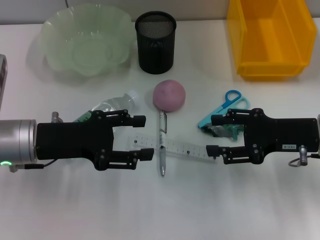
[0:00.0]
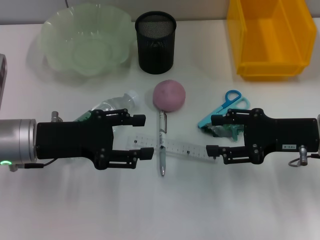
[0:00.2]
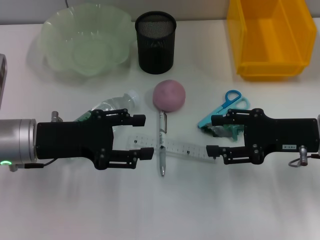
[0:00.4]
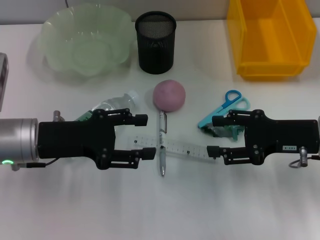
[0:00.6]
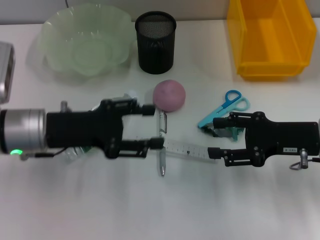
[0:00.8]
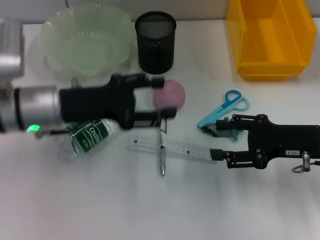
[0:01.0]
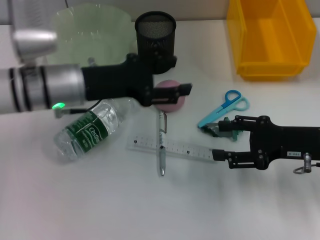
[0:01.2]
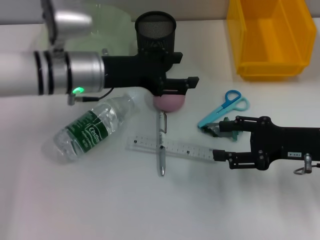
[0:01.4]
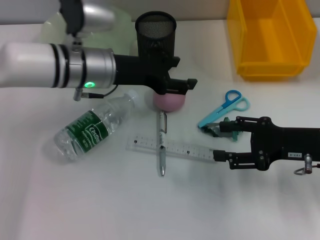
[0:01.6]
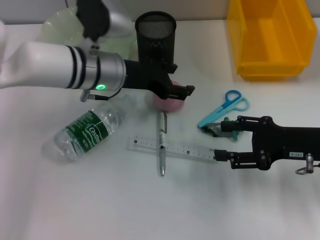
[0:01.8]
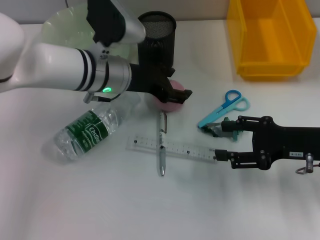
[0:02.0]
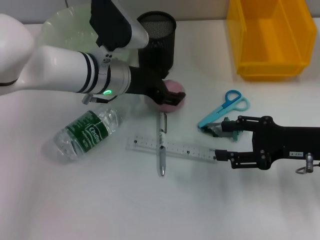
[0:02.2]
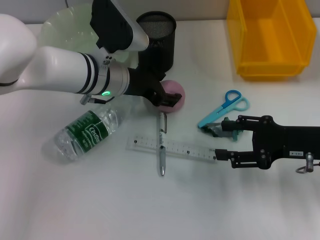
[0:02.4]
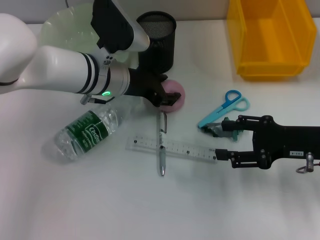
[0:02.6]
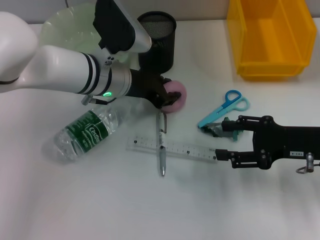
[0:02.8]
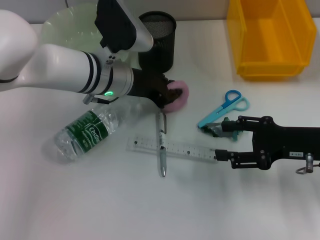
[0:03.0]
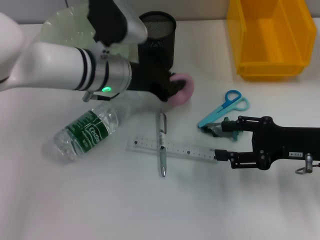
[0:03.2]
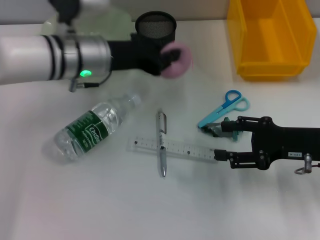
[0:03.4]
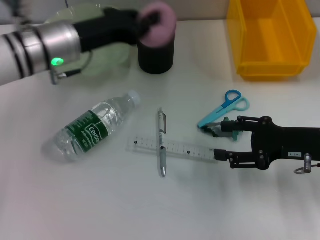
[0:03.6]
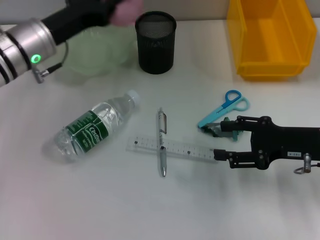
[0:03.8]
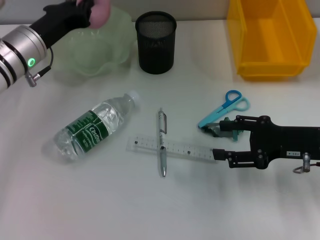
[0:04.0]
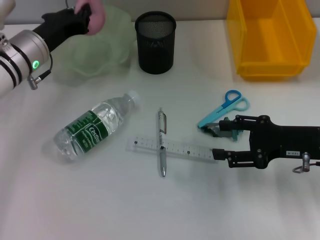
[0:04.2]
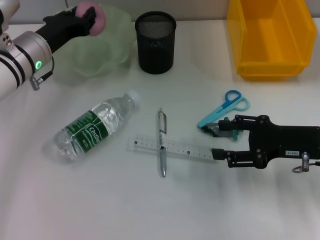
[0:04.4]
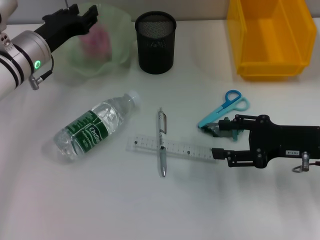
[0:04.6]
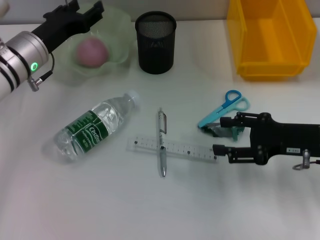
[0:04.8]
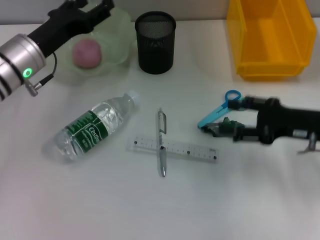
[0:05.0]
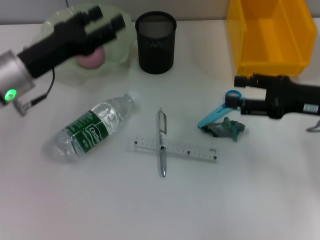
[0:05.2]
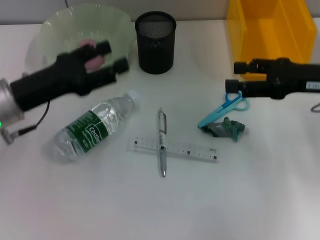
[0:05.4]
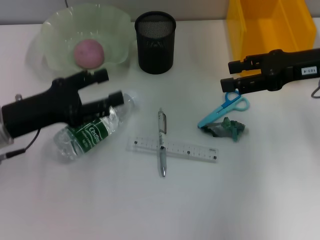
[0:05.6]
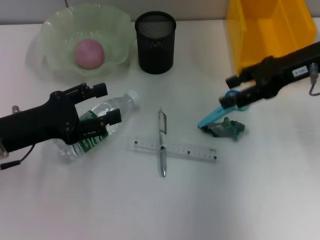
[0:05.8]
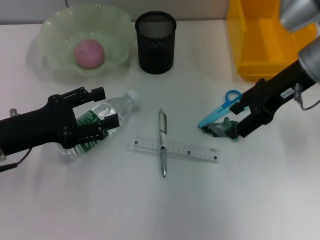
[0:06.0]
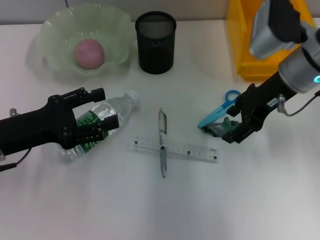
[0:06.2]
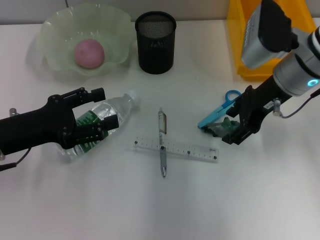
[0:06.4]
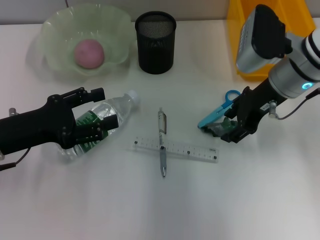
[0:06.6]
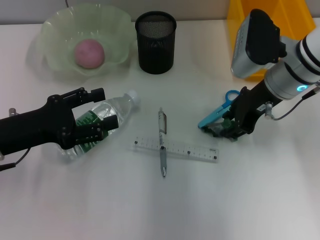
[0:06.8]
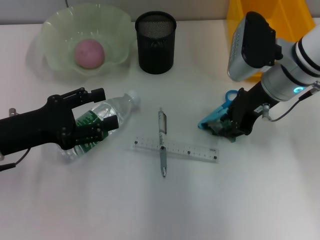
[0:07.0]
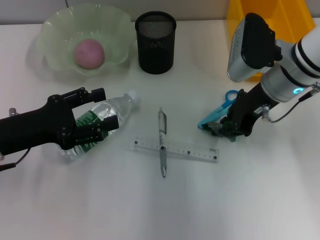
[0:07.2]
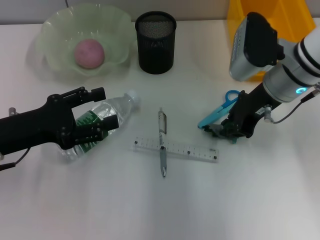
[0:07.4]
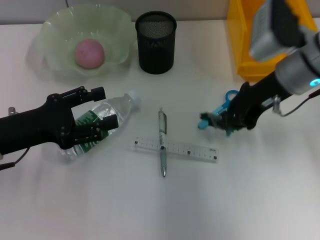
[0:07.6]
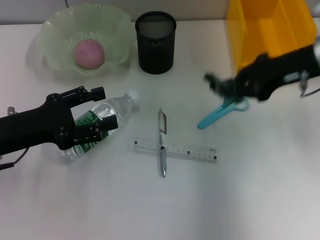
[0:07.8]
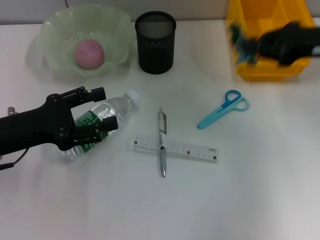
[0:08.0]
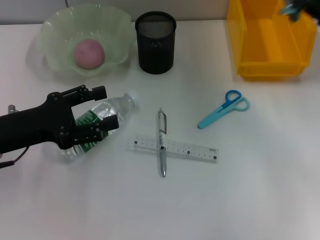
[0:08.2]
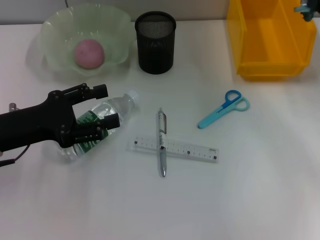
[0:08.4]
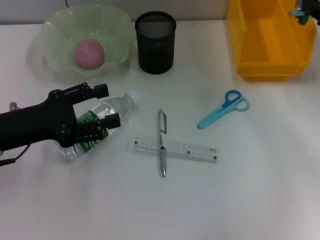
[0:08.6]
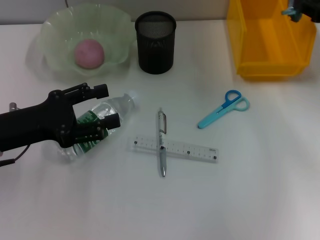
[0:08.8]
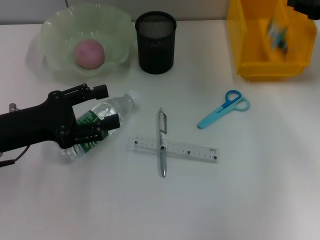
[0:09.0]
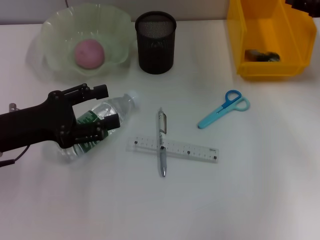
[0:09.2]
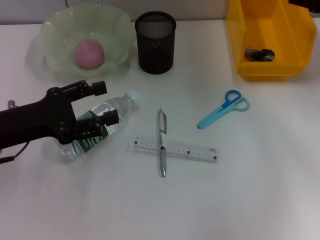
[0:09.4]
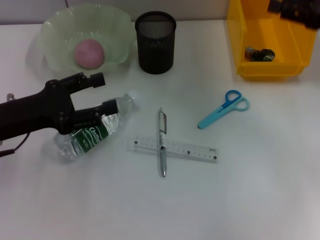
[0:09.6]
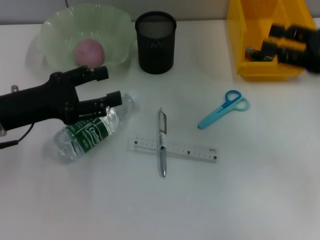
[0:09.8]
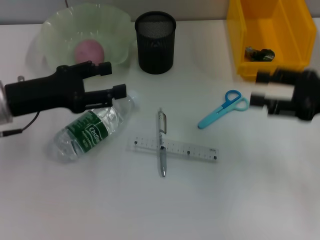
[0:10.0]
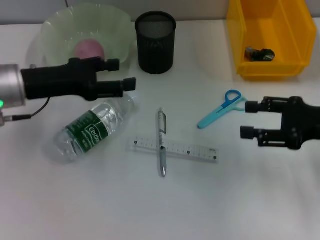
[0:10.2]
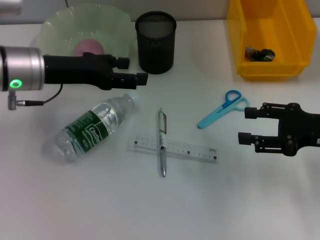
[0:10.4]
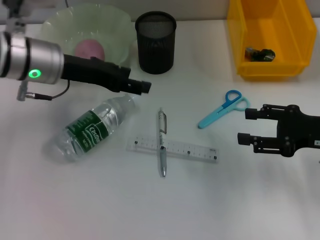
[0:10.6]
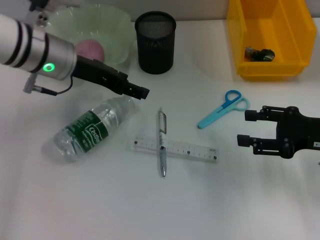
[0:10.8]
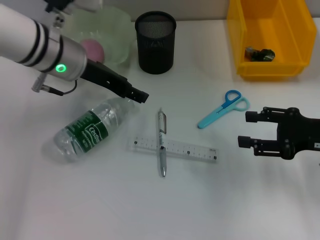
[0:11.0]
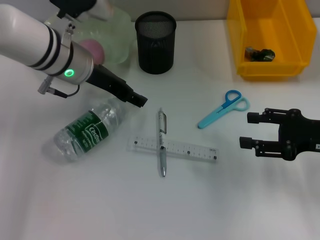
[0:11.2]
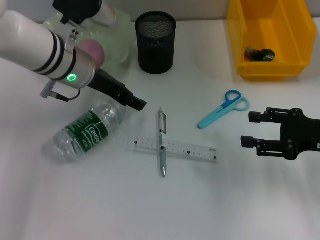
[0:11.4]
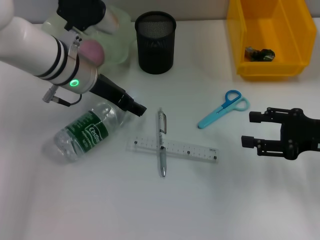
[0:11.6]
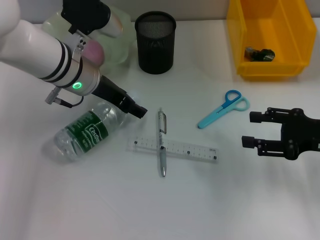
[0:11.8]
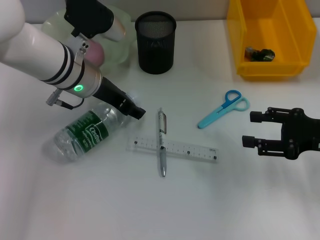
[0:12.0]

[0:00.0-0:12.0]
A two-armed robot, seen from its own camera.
Step, 0:00.0 to 0:02.6: Grab the peach with the left hand.
Step, 0:03.0 to 0:04.8: Place the peach into the fruit bowl with the left hand.
Step, 0:05.0 to 0:07.6: Grab the plastic with the right hand.
Step, 0:07.8 to 0:09.2: Place the plastic into the trash can with the right hand.
0:00.0 to 0:01.6: The left gripper goes some 15 cm forward and to the right.
0:01.6 to 0:03.0: The left gripper closes its fingers.
0:03.0 to 0:04.4: The left gripper heads to the left, covering some 10 cm, and closes its fingers.
0:04.4 to 0:06.0: The left gripper travels backward by approximately 15 cm, and opens up, while the right gripper heads upward, forward and to the left, covering some 15 cm.
0:06.0 to 0:07.6: The right gripper closes its fingers.
0:07.6 to 0:09.0: The right gripper shifts approximately 15 cm to the right.
0:09.0 to 0:10.4: The left gripper heads forward and to the right, covering approximately 10 cm. Meanwhile the right gripper heads backward and downward, covering about 15 cm, and opens its fingers.
0:10.4 to 0:12.0: The left gripper goes approximately 5 cm to the right.

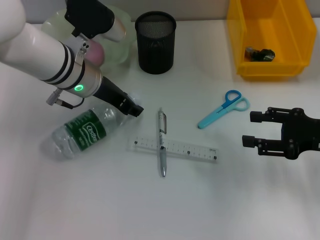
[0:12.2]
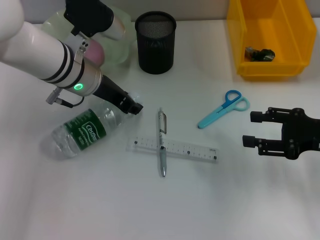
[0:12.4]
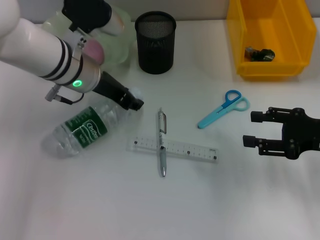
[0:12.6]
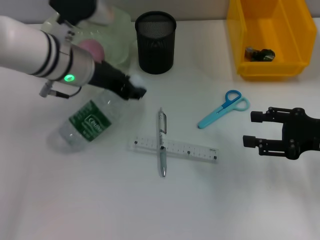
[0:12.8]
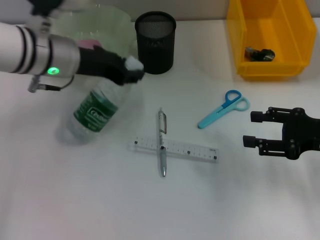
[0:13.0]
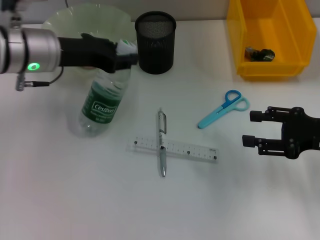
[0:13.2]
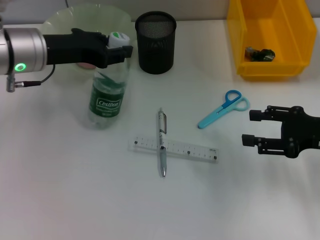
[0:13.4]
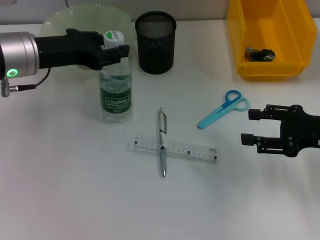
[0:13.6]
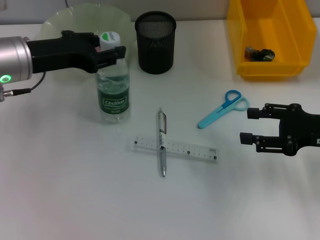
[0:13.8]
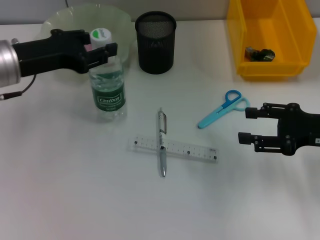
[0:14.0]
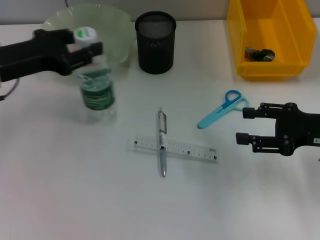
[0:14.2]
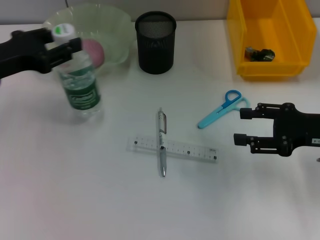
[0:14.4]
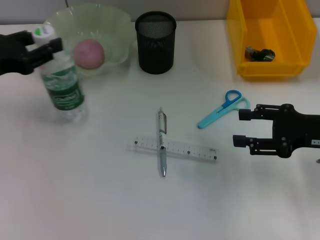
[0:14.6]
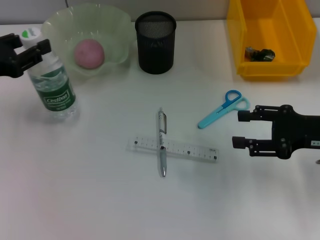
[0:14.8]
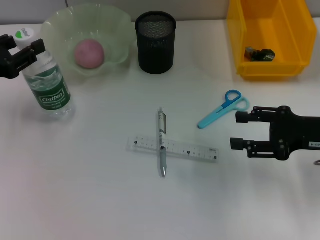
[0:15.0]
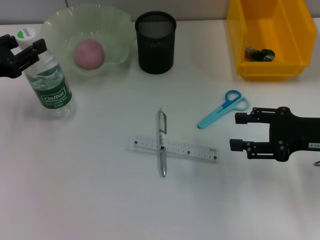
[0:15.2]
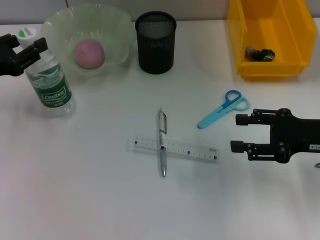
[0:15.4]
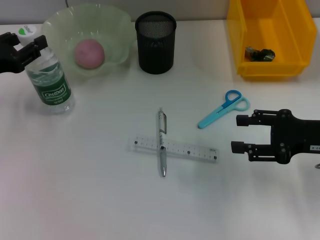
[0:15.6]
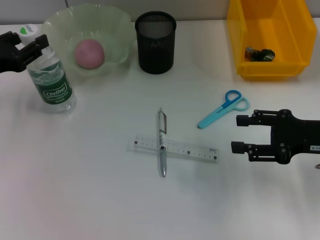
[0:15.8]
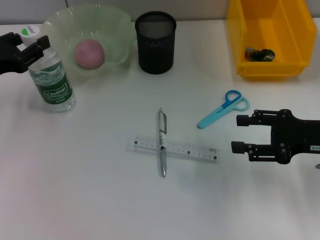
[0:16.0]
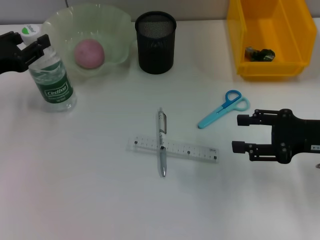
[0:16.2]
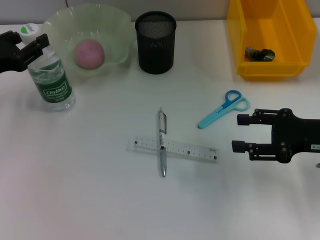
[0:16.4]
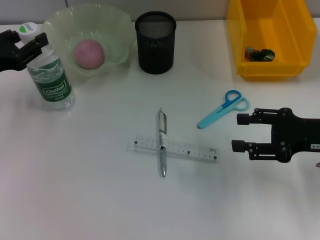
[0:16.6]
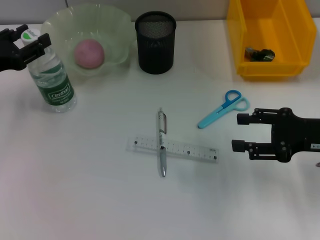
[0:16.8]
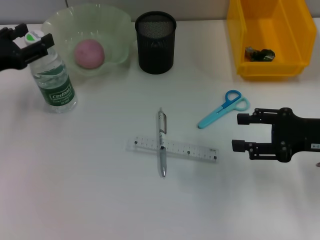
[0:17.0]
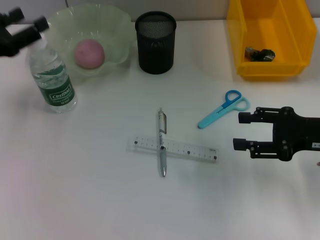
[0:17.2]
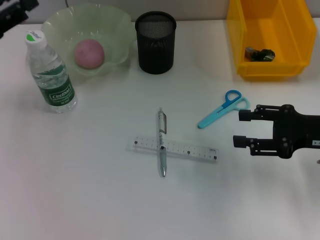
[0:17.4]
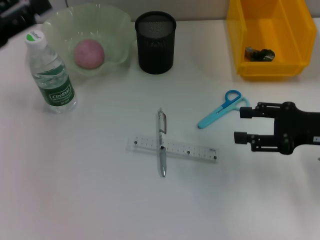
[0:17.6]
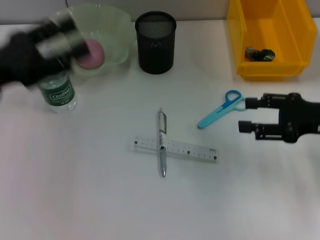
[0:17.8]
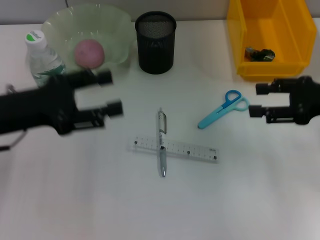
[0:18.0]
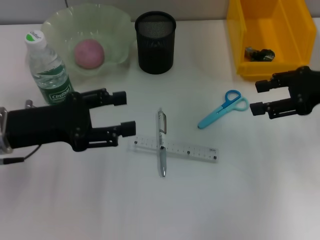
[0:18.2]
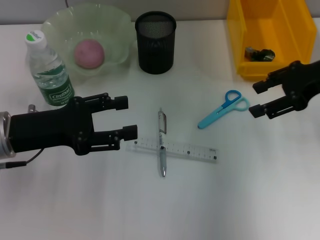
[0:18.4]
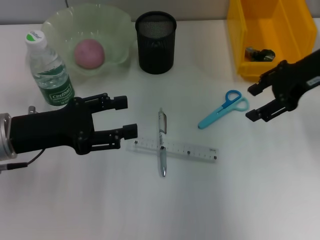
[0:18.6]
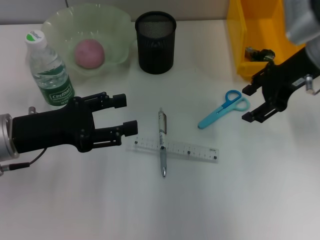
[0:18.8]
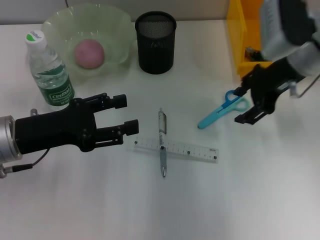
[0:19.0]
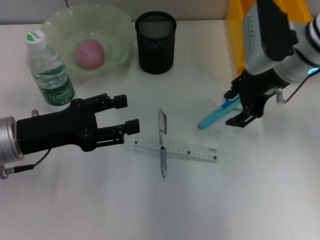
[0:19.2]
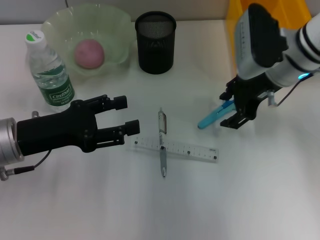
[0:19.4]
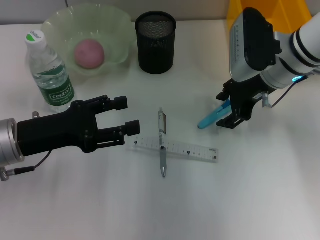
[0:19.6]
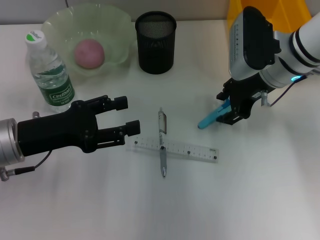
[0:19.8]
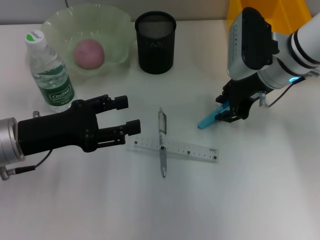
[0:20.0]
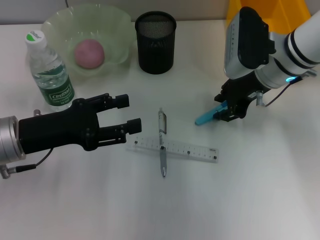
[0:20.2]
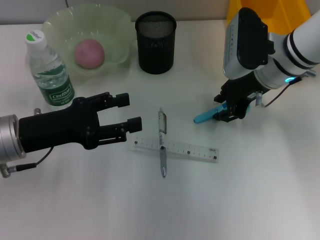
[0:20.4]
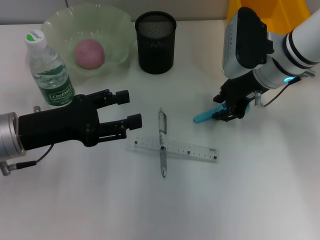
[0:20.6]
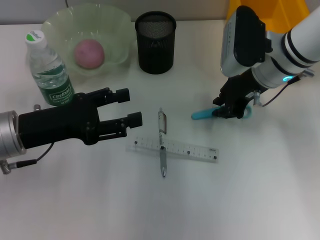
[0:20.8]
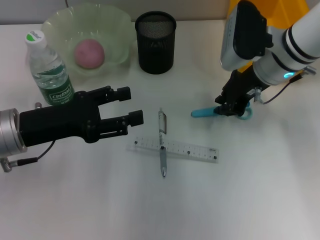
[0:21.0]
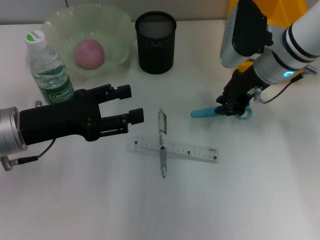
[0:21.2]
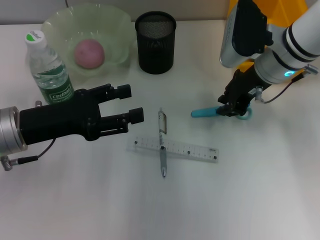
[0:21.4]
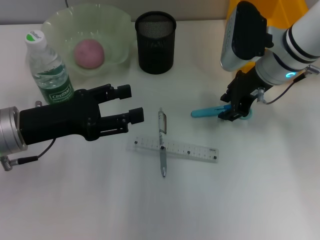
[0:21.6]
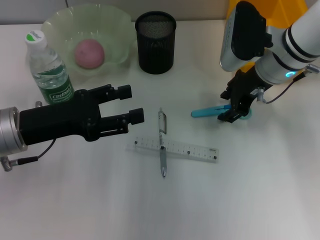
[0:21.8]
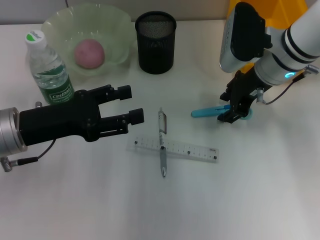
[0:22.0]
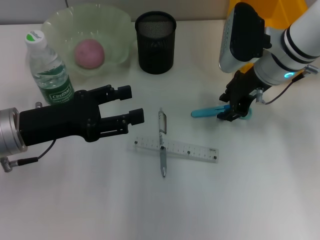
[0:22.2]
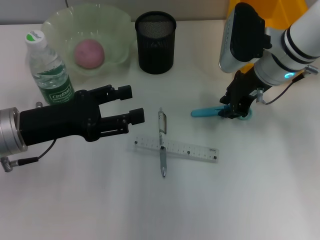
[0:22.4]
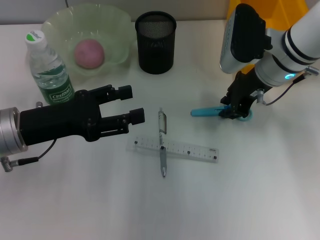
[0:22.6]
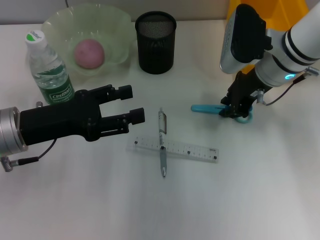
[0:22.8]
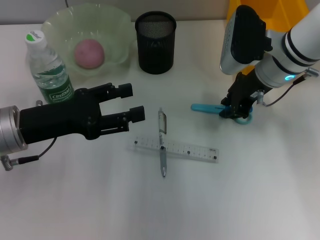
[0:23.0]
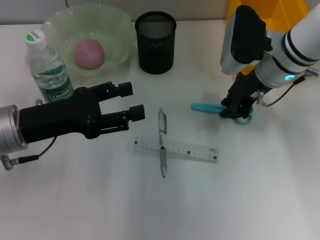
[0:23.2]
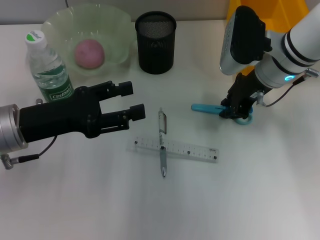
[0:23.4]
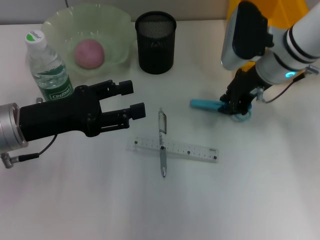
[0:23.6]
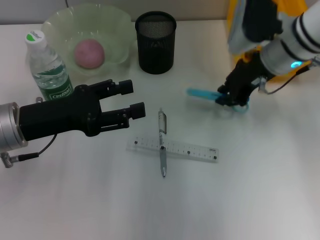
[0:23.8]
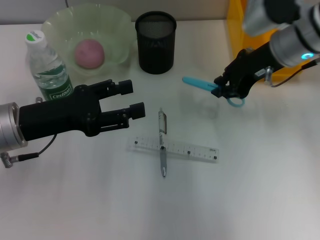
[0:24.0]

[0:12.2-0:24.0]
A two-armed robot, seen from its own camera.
Step, 0:12.8 to 0:17.2: Place the water bottle on the table with the left hand.
Step, 0:17.4 to 0:23.4: Grab the blue scissors with the right hand.
0:12.2 to 0:13.6: The left gripper travels to the left by approximately 10 cm, and closes up.
0:13.6 to 0:15.2: The left gripper heads to the left and backward, covering roughly 10 cm.
0:15.2 to 0:16.6: There are only small adjustments of the grippers.
0:16.6 to 0:18.2: The left gripper shifts some 5 cm to the right, and opens, while the right gripper shifts roughly 10 cm upward and forward.
0:18.2 to 0:19.6: The right gripper heads to the left and forward, covering some 15 cm.
0:19.6 to 0:21.0: The right gripper closes.
0:21.0 to 0:22.6: The right gripper opens, then closes once more.
0:22.6 to 0:24.0: The grippers stay close to where they were, moving slightly.
